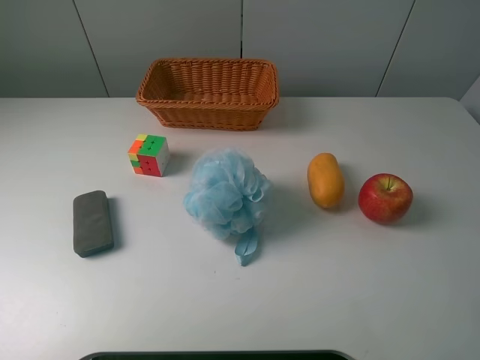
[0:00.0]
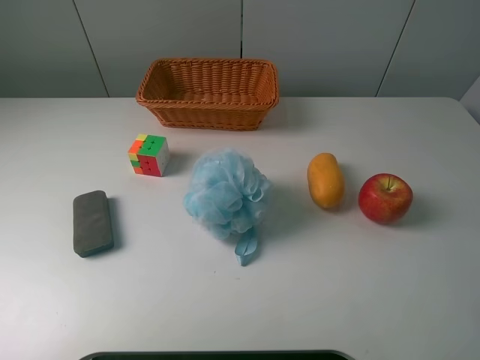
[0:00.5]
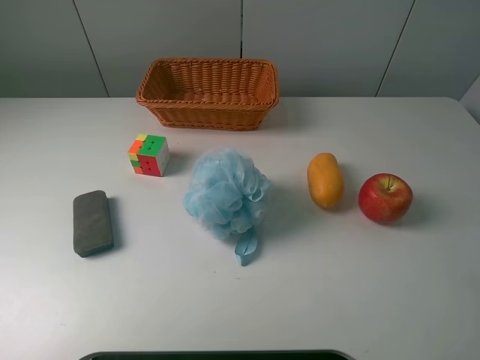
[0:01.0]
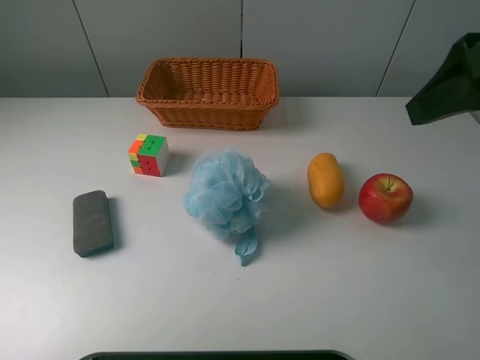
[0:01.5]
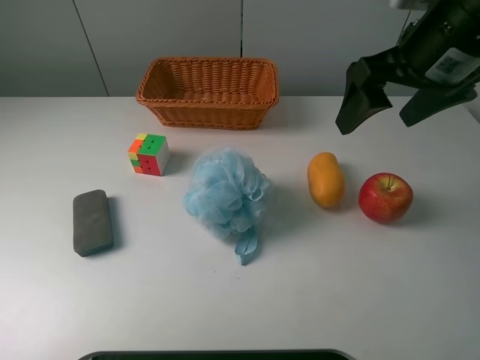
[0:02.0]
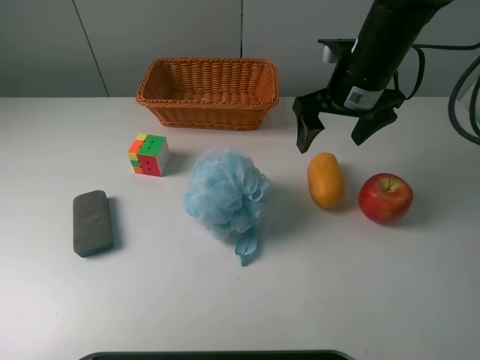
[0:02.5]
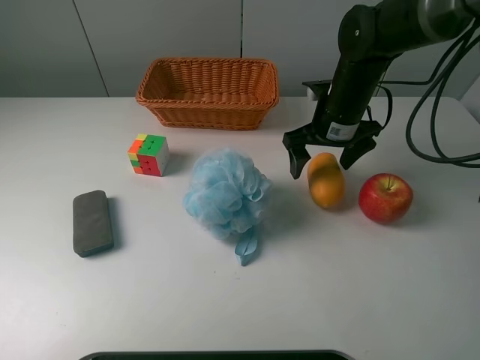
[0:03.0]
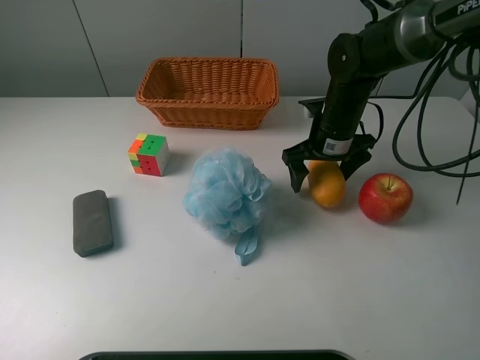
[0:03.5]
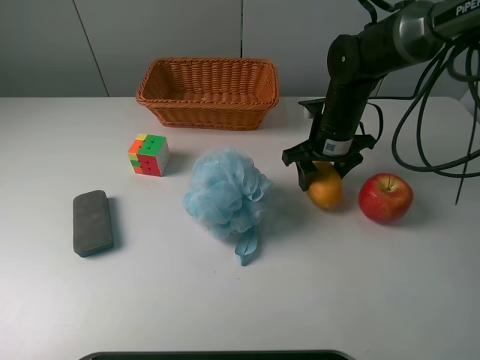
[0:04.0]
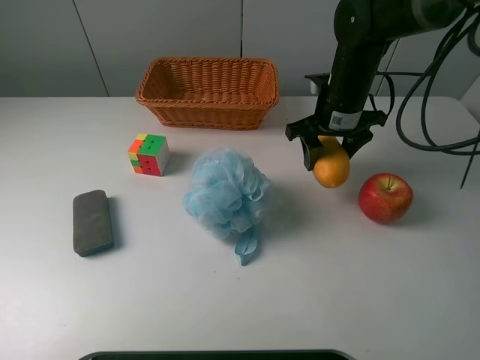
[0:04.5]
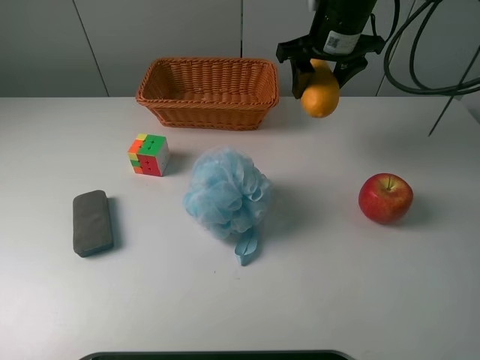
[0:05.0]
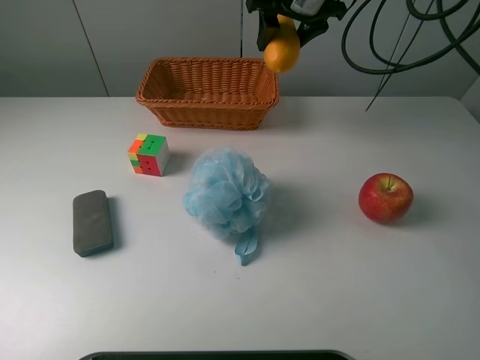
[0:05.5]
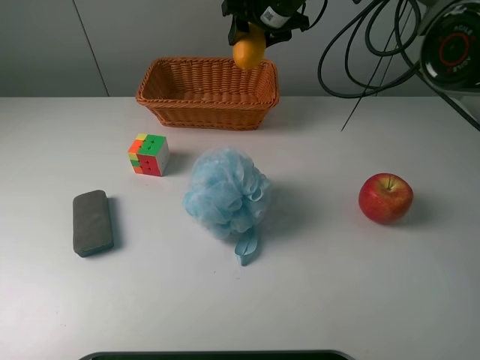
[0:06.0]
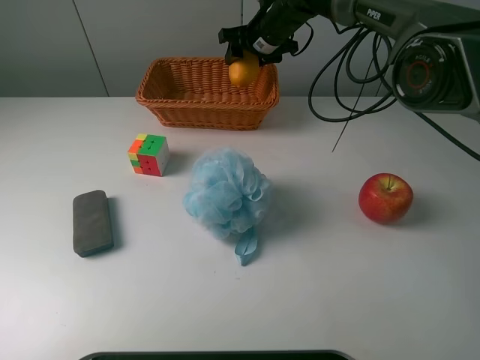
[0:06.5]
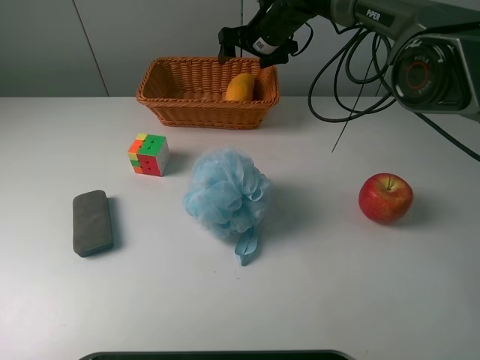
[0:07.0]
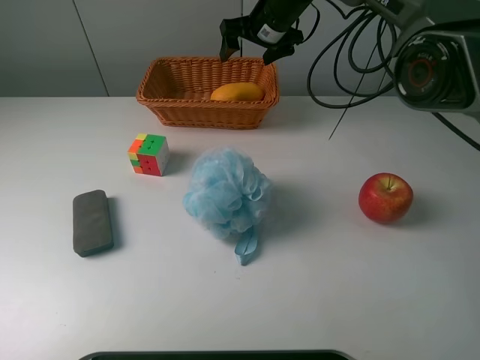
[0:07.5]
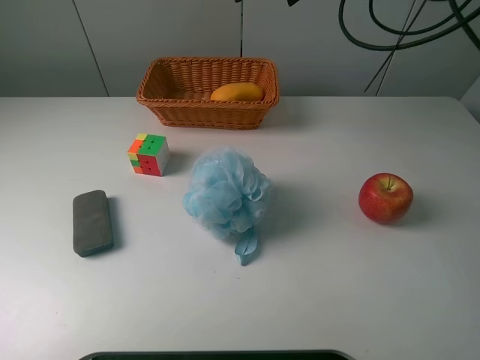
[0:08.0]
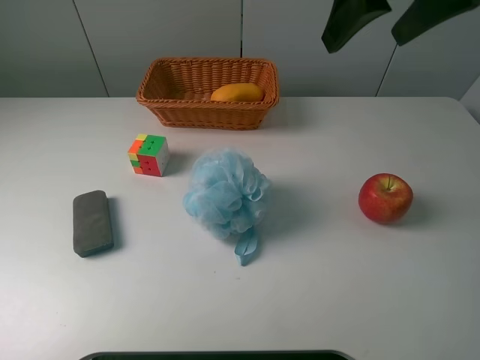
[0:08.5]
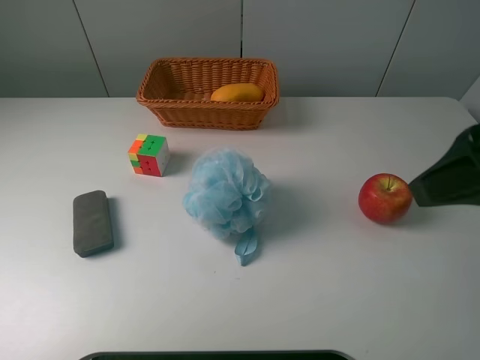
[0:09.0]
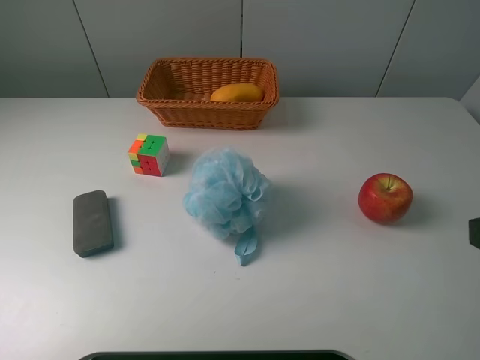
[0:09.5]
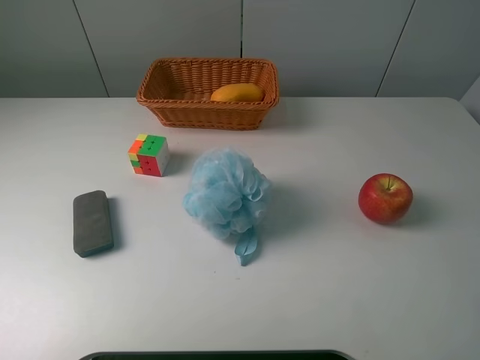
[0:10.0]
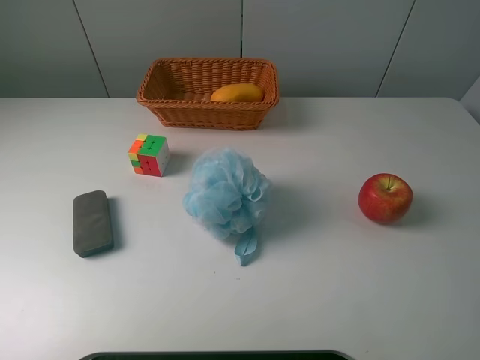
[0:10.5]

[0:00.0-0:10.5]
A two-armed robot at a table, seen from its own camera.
Task of the whole recording: use a picker to grab the item closest to the apple and place it in the basket.
Step, 0:00.0 to 0:04.0: Grasp the mango with the right gripper.
Step, 0:04.5 to 0:07.5: Place the mango into the basket with the right gripper.
0:02.0 to 0:04.0: The right gripper is displaced downward and forward by approximately 25 cm, and closes its fingers.
0:04.0 to 0:06.5: The right gripper heads forward, to the left and upward, covering about 20 cm.
0:06.5 to 0:08.5: The right gripper goes some 30 cm backward and upward, and opens.
0:08.5 to 0:10.5: The right gripper goes some 30 cm backward and to the right.
